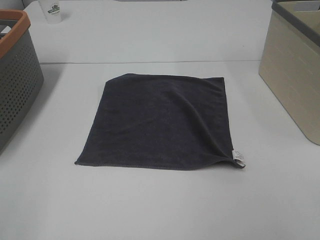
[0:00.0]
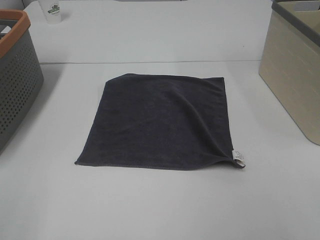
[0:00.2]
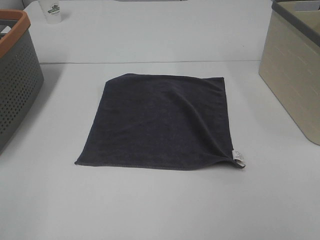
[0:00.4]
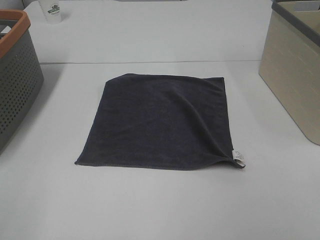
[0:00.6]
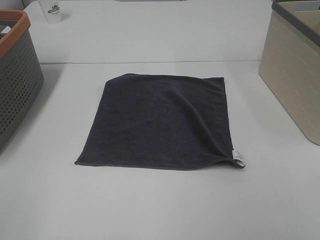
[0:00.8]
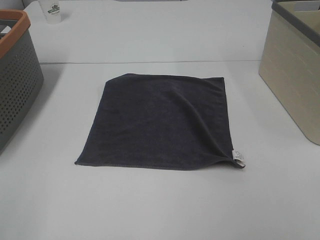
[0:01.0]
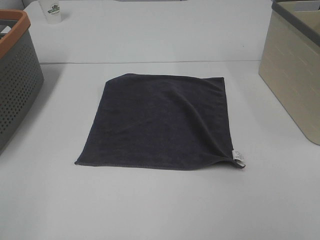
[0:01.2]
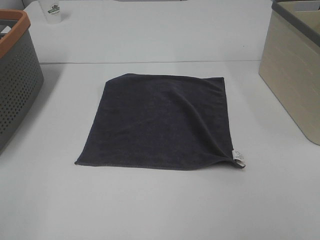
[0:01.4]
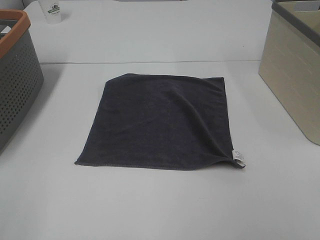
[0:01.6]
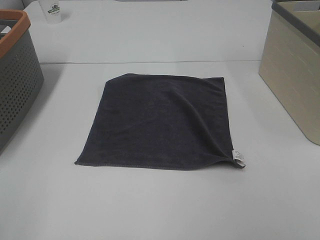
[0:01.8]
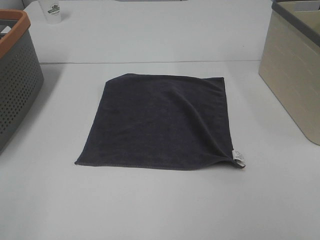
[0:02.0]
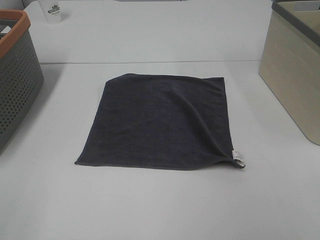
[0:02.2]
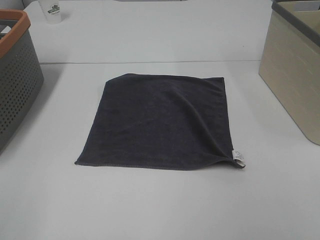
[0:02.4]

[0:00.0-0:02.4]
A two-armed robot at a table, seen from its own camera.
Task of the whole recording: Remove the towel and place it.
0:01.2 to 0:02.4: Both grippers stay put.

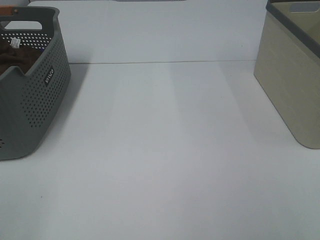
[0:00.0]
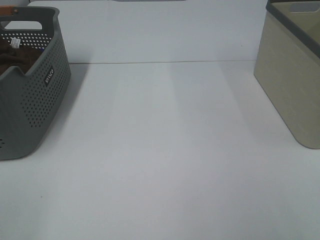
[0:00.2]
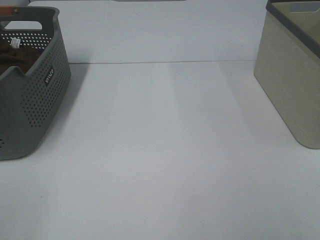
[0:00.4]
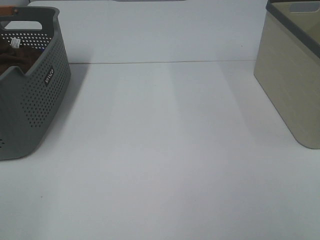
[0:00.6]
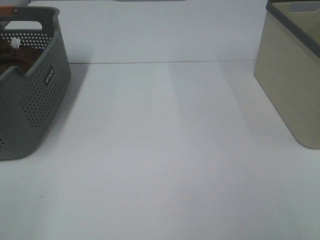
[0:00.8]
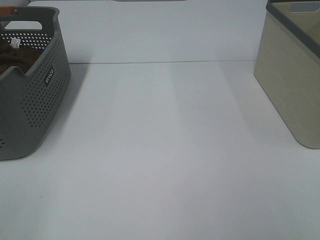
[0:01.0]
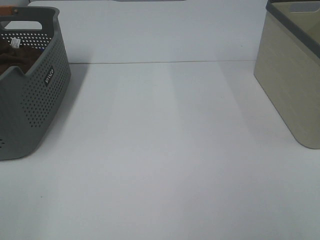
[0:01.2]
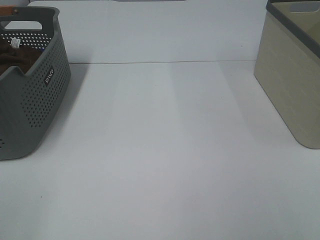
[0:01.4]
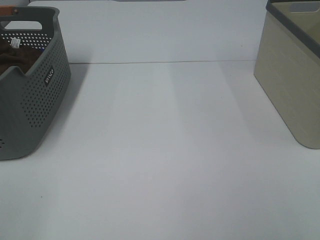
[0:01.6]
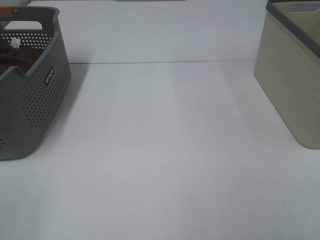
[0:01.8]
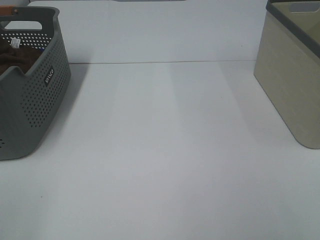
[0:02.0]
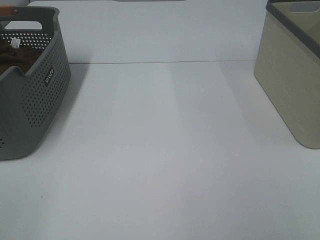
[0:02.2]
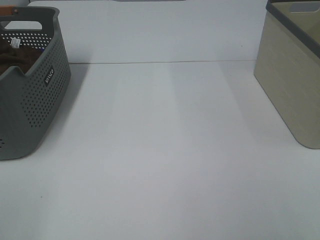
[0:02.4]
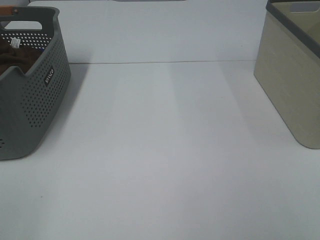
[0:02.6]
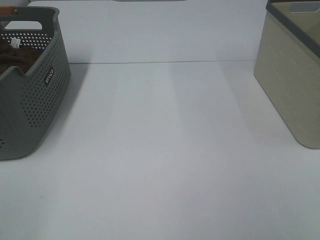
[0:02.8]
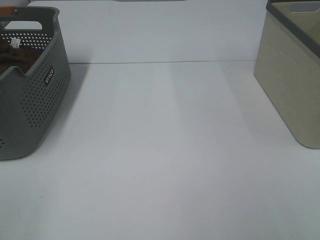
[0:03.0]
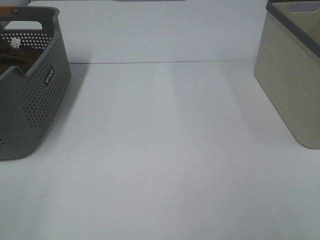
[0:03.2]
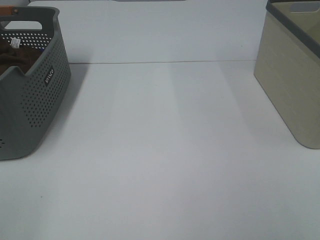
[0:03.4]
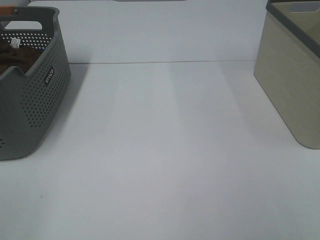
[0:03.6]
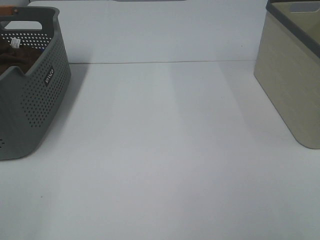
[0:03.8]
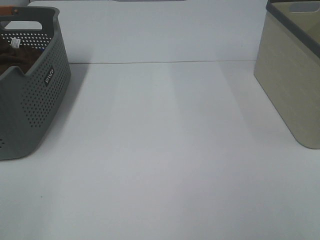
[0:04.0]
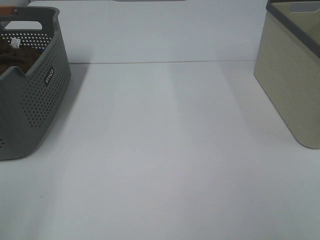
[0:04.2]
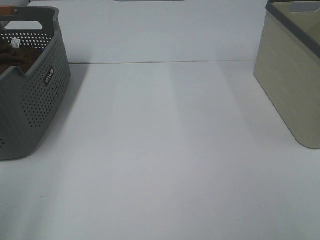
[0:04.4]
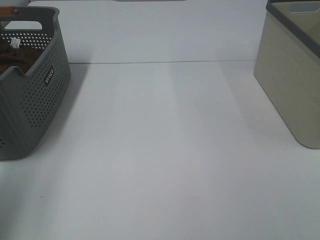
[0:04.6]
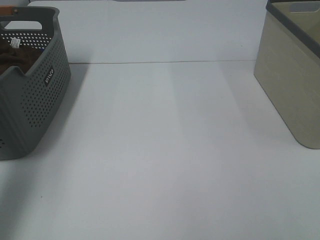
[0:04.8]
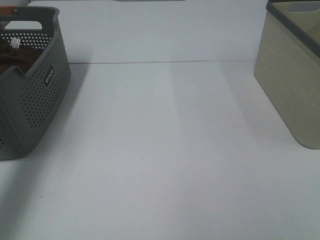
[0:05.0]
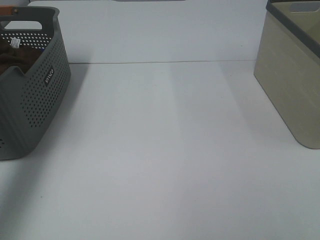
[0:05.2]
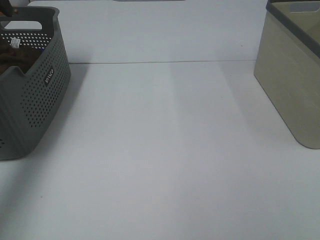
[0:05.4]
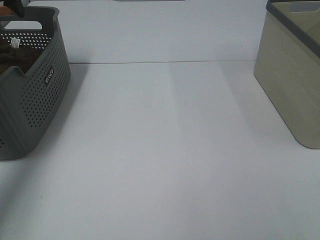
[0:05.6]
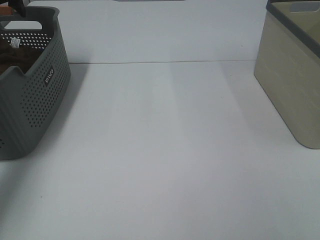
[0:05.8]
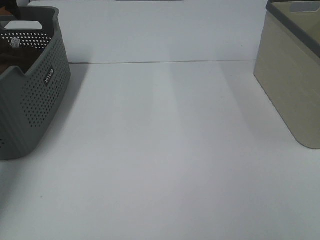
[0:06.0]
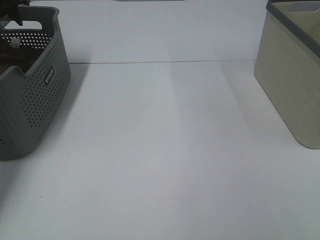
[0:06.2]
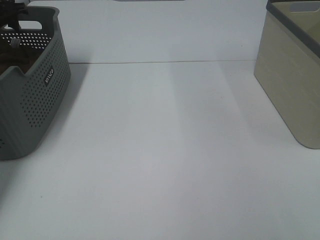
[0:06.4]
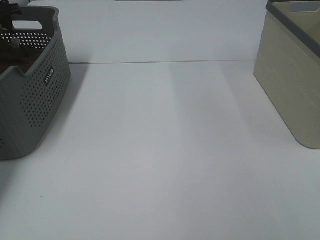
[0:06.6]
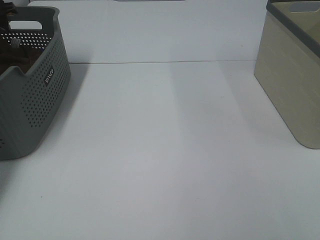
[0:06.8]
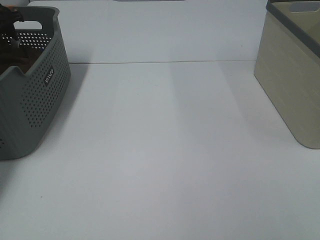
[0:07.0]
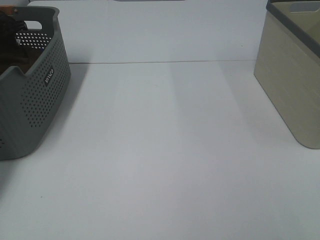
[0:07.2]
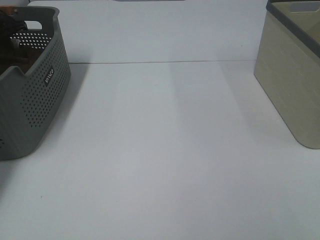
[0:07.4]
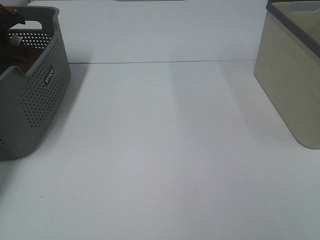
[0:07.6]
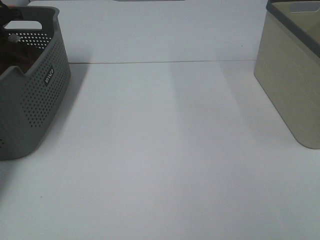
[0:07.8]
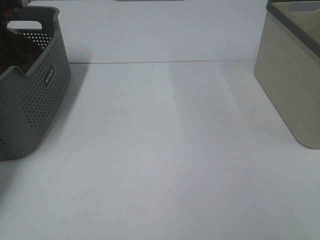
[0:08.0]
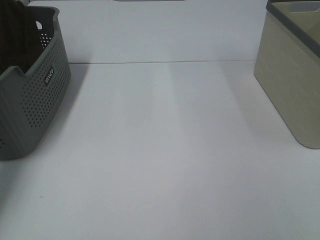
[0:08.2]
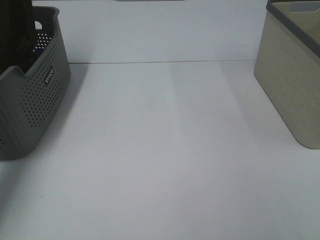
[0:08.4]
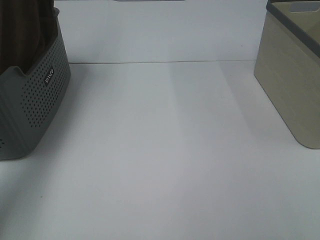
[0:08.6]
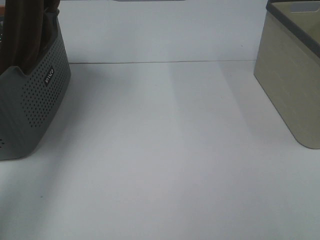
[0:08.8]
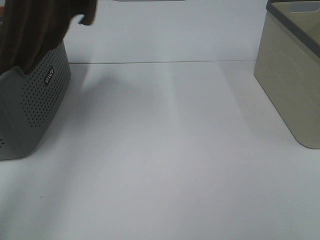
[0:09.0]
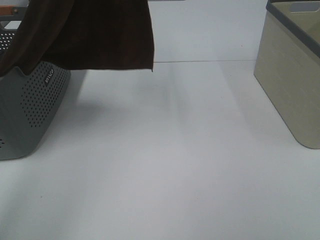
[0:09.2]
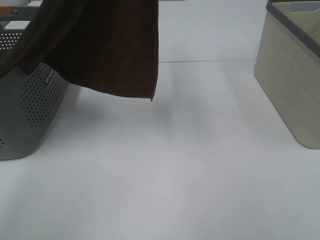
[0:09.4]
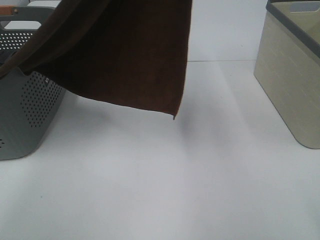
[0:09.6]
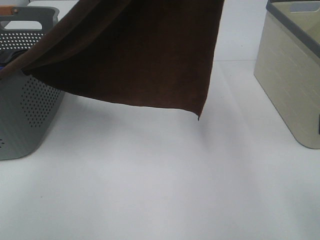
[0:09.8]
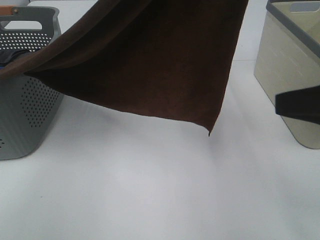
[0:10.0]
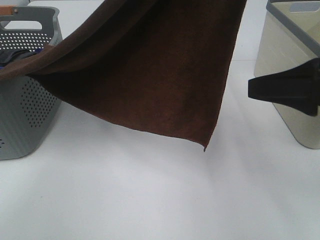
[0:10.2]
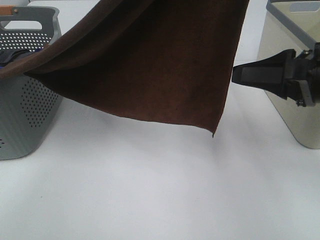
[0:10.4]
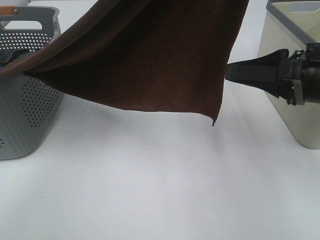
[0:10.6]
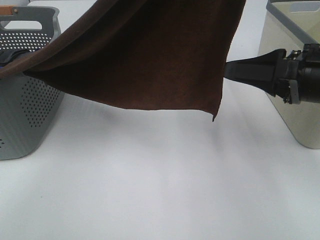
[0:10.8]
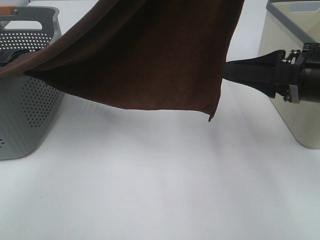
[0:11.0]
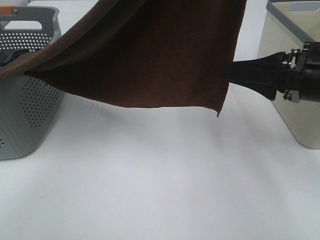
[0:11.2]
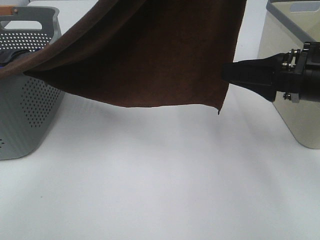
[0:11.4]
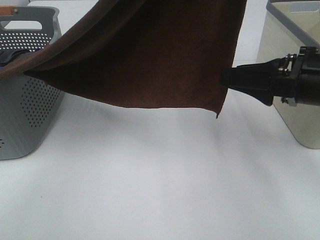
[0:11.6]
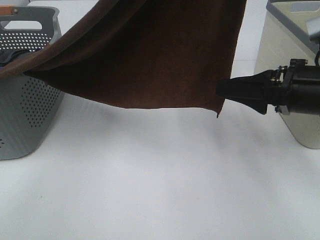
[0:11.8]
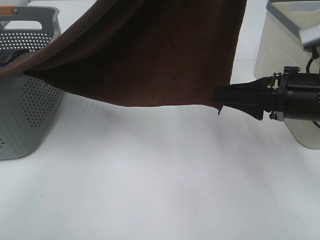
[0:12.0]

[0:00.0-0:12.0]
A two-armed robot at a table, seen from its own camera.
Task of the whole recording: Remove the towel and place it.
0:00.0 to 0:03.0: Neither gripper changes place.
0:04.4 to 0:06.0: The left gripper is displaced forward by some 40 cm.
0:06.0 to 0:07.6: The left gripper heads downward and to the left, covering approximately 10 cm, and closes up.
0:07.6 to 0:09.0: The left gripper is displaced upward, to the right and backward by some 40 cm.
0:09.0 to 0:10.4: The left gripper shifts roughly 20 cm to the right and backward, while the right gripper travels forward by some 20 cm, and opens up.
0:10.4 to 0:12.0: The right gripper travels downward by about 5 cm.

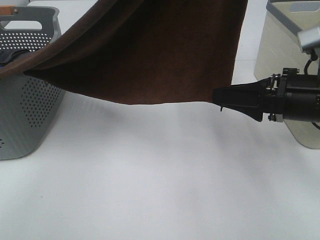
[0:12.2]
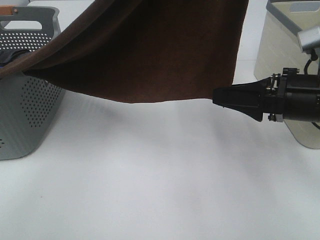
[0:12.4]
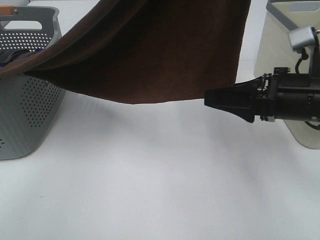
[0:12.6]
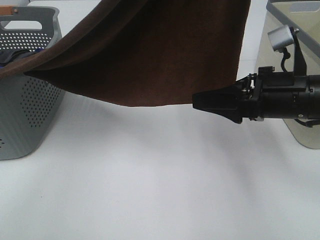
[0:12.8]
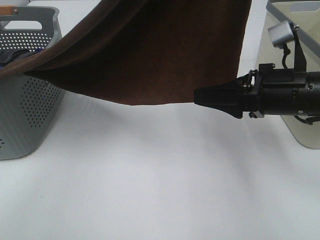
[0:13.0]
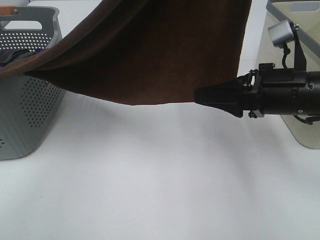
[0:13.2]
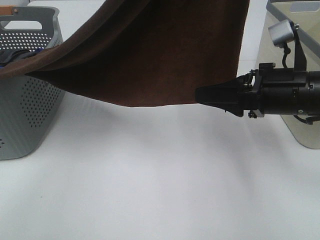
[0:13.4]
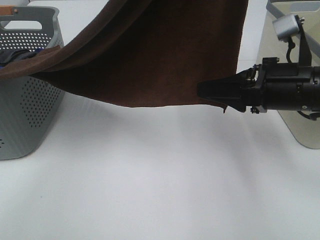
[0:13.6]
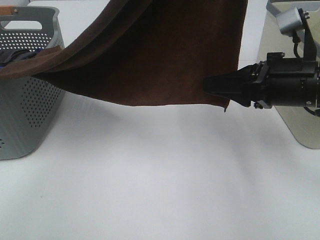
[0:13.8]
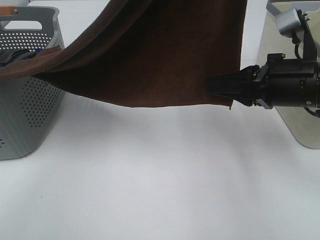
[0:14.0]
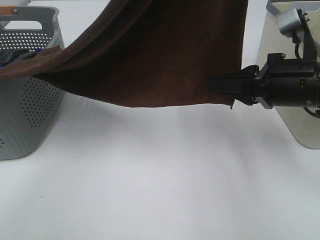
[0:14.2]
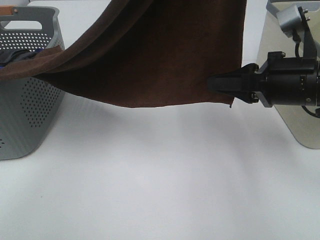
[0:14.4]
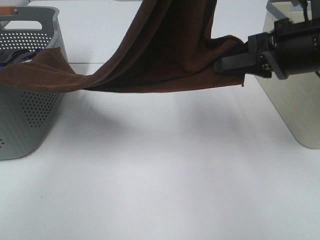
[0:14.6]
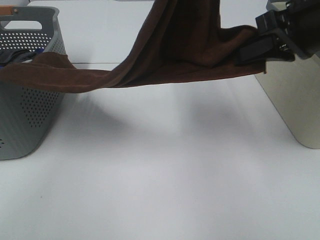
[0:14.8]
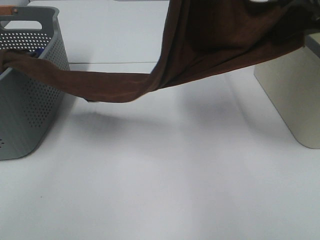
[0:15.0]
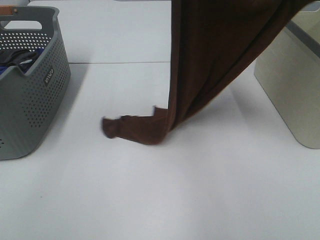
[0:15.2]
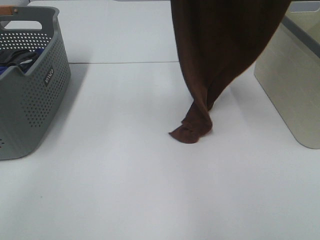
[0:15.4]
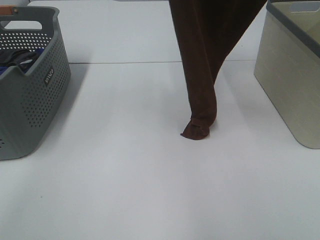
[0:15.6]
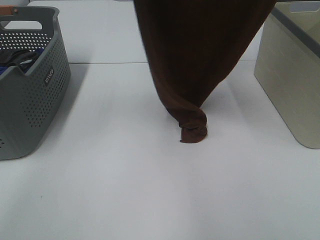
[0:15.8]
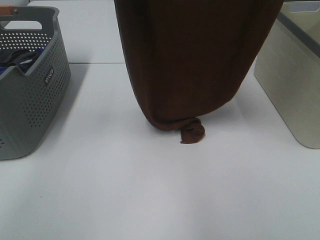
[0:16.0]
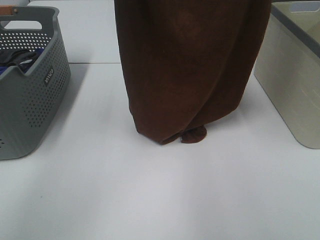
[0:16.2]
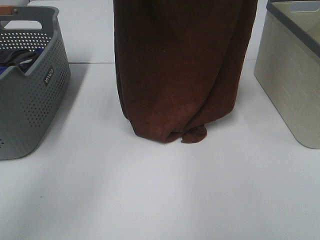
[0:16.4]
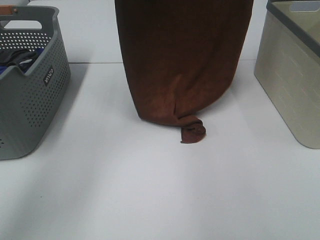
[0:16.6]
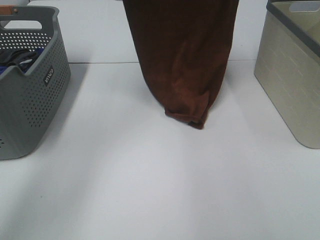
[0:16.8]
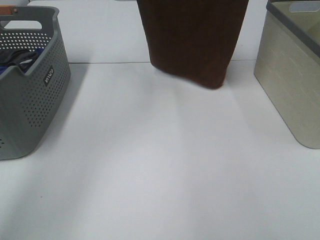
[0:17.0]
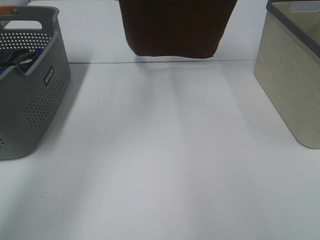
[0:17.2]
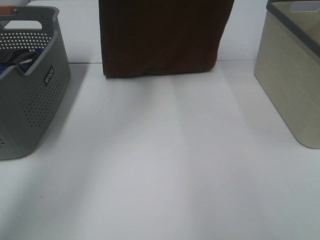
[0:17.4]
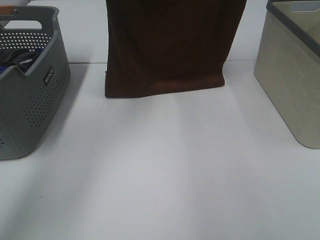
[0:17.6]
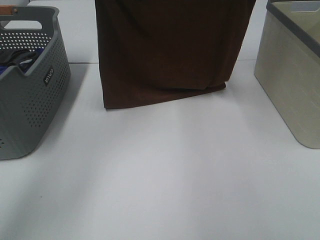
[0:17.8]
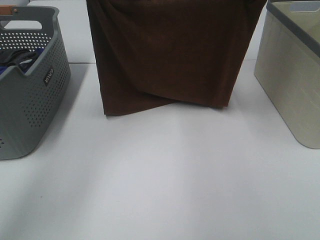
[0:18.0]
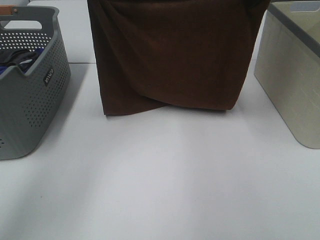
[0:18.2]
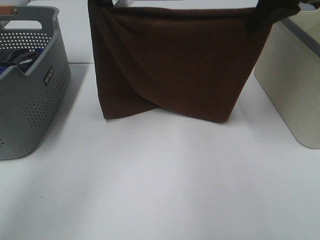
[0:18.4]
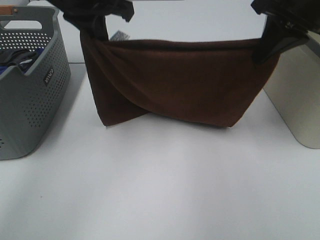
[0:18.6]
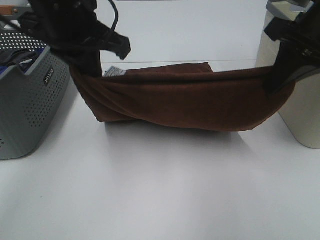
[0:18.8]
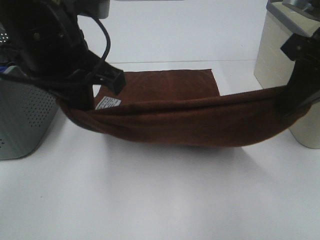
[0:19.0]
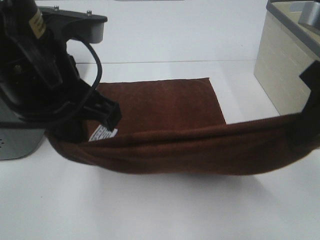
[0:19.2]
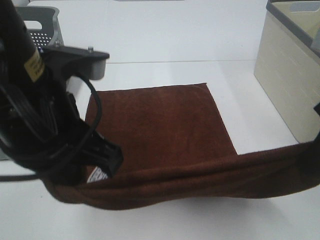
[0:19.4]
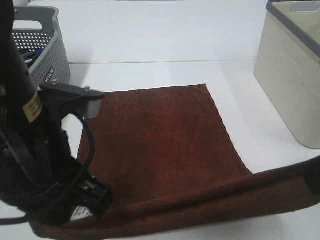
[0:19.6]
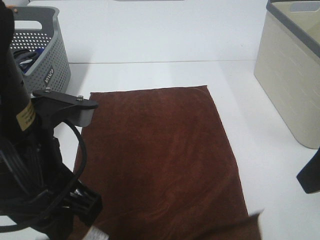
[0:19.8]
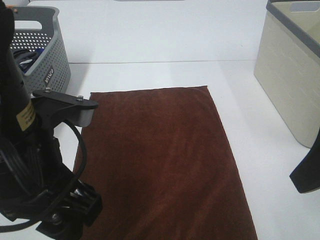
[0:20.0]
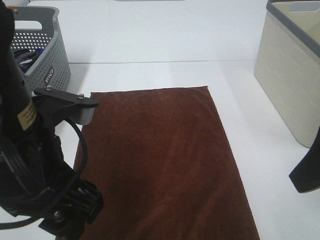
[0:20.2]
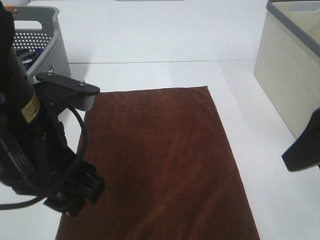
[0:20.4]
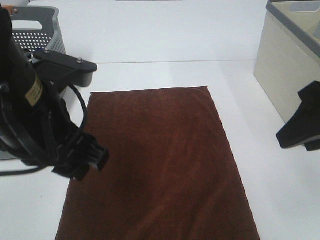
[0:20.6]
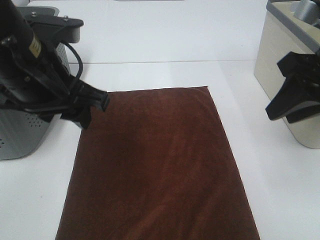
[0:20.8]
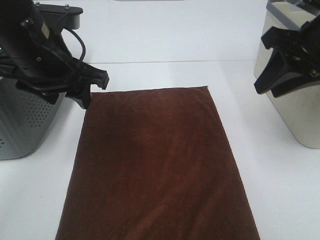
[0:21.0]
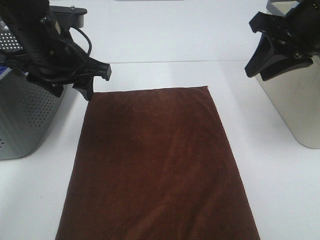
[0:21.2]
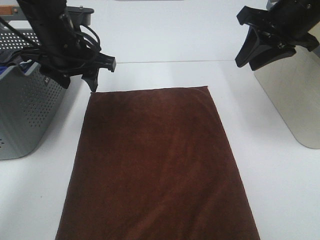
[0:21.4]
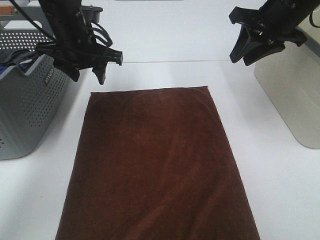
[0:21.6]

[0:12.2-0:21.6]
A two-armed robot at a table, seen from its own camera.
Task of the whole recording: Remove the towel and place it.
Step, 0:13.6 to 0:16.0: Left hand: spread the brown towel flat on the table.
Step, 0:13.6 to 0:16.0: Right hand: spread the brown towel flat on the table.
0:12.2 to 0:13.8: The right gripper closes.
0:13.8 to 0:15.4: The left gripper moves forward, about 5 cm; the right gripper moves upward, roughly 25 cm, and closes up.
0:15.4 to 0:17.0: The right gripper goes about 15 cm forward and upward; the left gripper moves forward and to the left, roughly 15 cm.
0:17.0 to 0:18.4: Both grippers move downward, some 20 cm.
0:18.4 to 0:20.0: Both grippers move backward, some 25 cm. The right gripper opens up. The left gripper opens up.
0:20.0 to 0:21.6: The two grippers go roughly 25 cm forward. The right gripper closes up.
